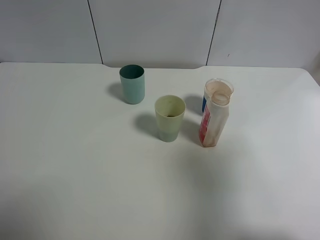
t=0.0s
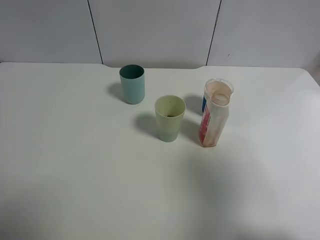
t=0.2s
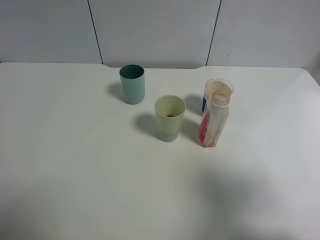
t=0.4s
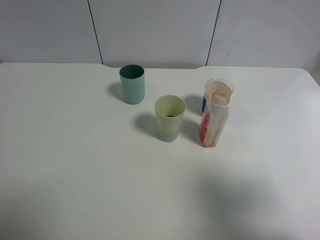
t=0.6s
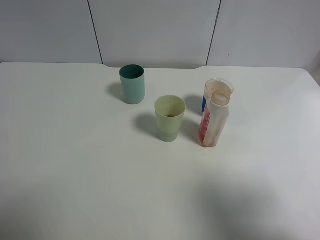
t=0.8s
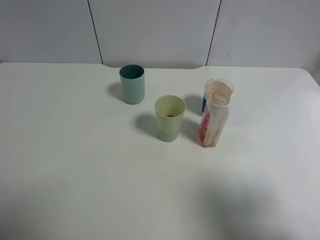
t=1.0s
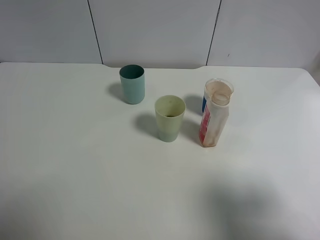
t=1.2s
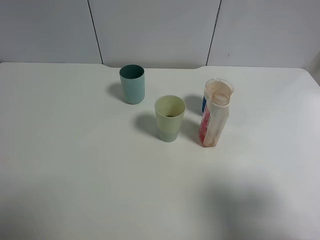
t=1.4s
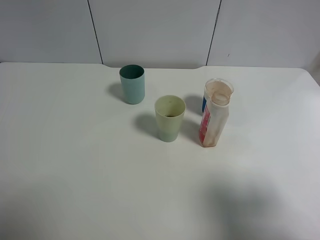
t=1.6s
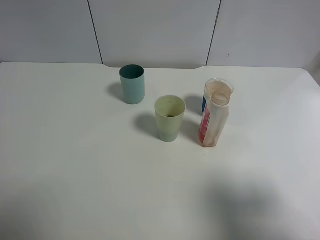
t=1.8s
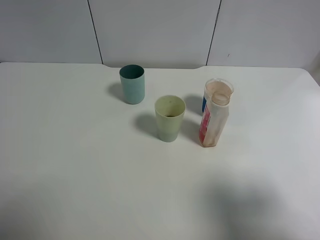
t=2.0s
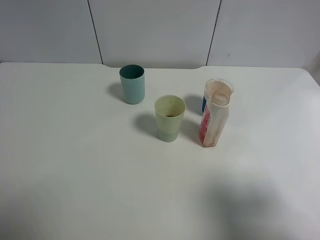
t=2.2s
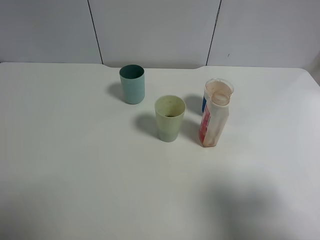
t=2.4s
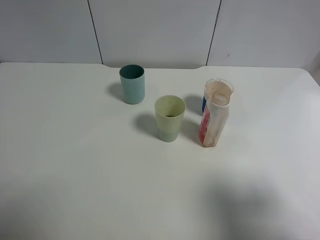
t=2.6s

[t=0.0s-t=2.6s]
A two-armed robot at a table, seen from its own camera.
Task of the whole recording: use a gripper to hold the bottle of the drink and pour it into a random cup.
t=0.0s to t=1.2s: The right gripper is displaced downward by some 10 cm.
t=1.2s to t=2.6s: Both grippers stay about where they are.

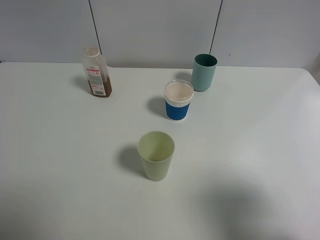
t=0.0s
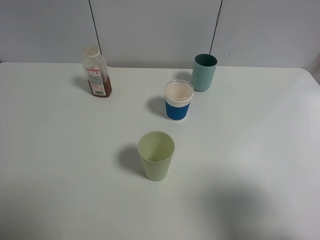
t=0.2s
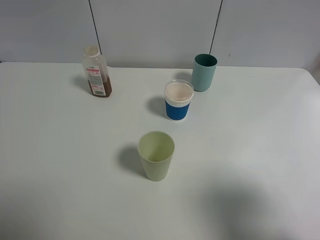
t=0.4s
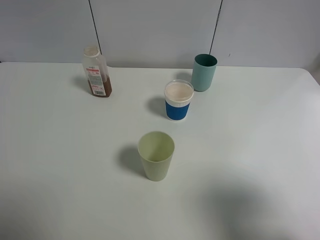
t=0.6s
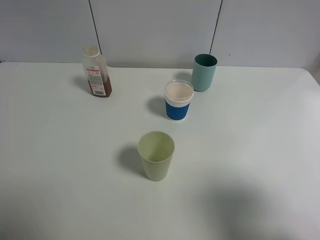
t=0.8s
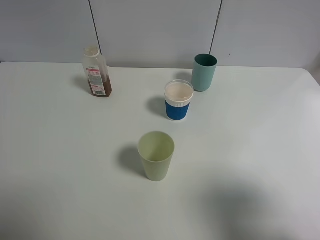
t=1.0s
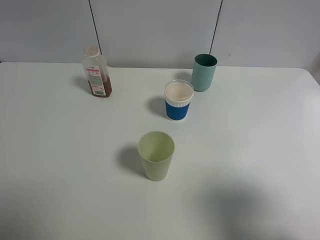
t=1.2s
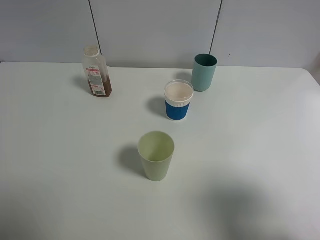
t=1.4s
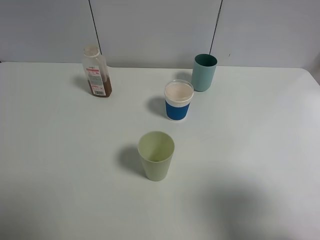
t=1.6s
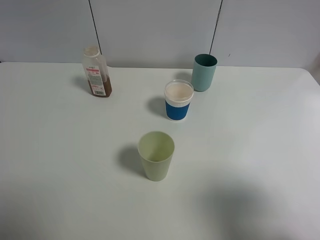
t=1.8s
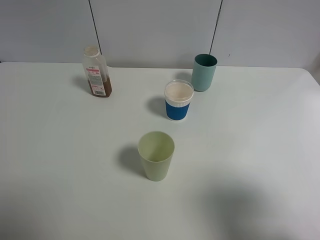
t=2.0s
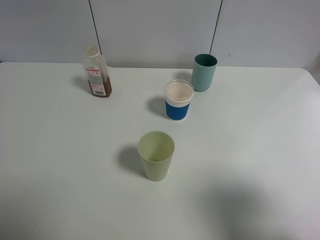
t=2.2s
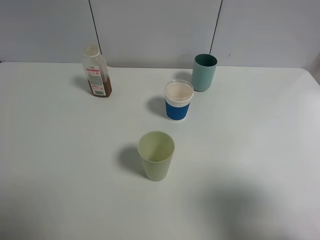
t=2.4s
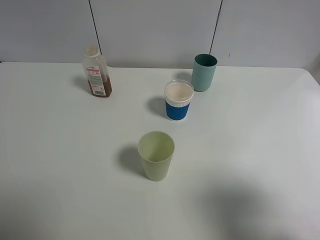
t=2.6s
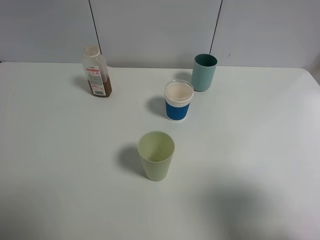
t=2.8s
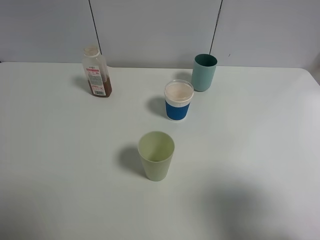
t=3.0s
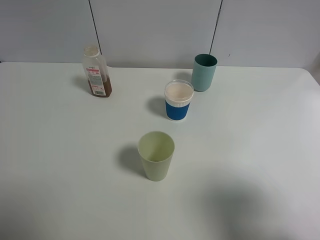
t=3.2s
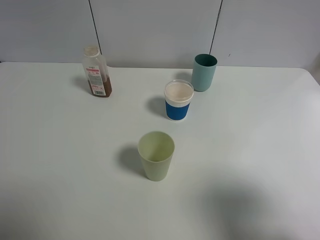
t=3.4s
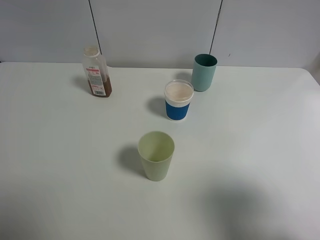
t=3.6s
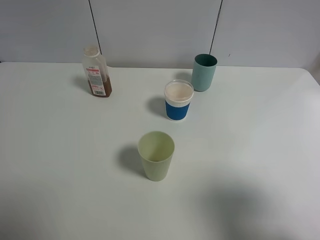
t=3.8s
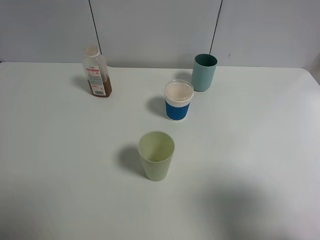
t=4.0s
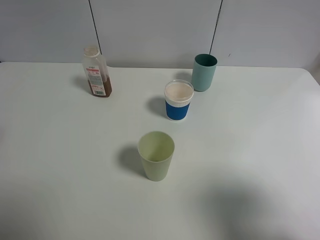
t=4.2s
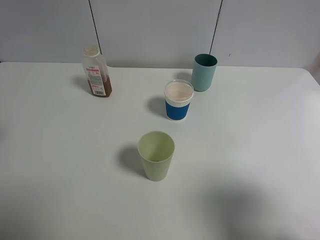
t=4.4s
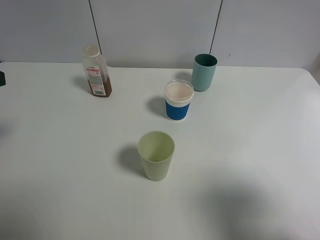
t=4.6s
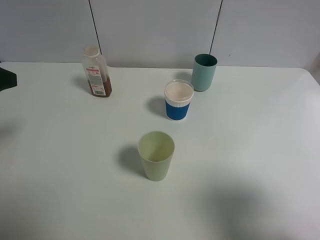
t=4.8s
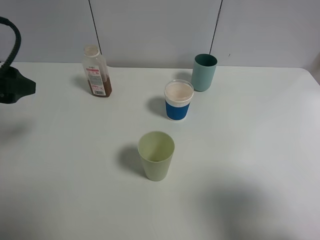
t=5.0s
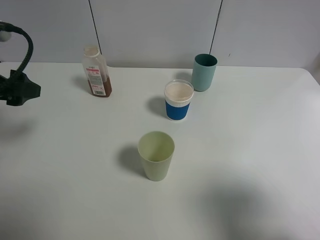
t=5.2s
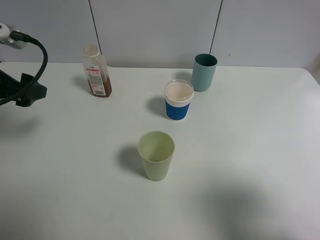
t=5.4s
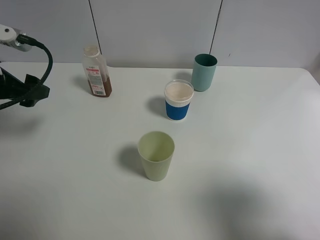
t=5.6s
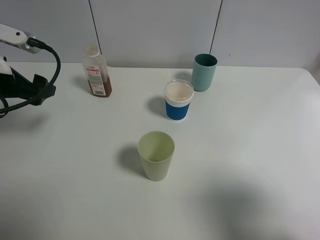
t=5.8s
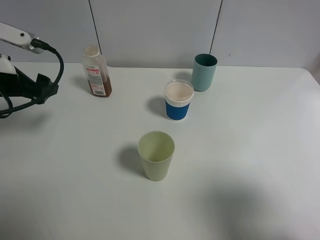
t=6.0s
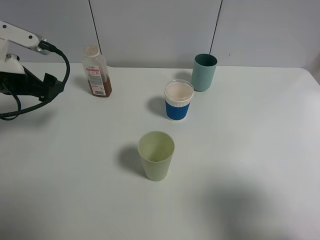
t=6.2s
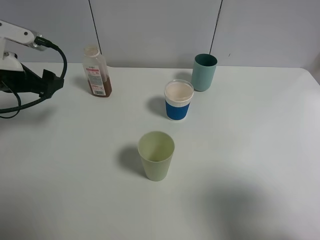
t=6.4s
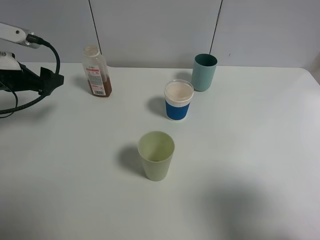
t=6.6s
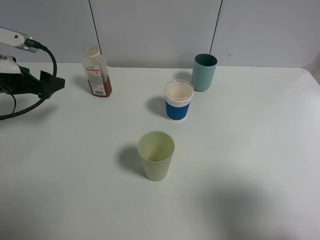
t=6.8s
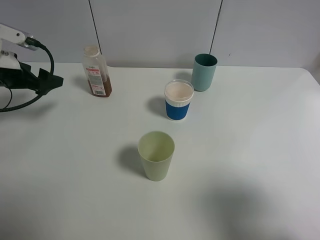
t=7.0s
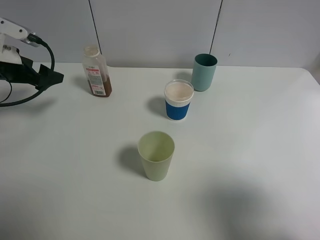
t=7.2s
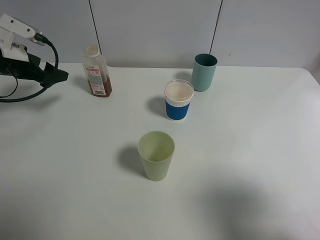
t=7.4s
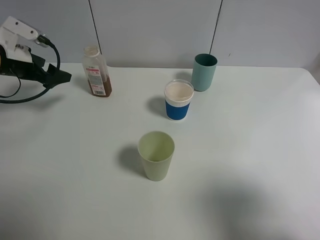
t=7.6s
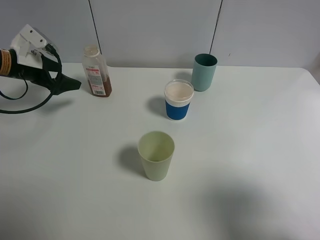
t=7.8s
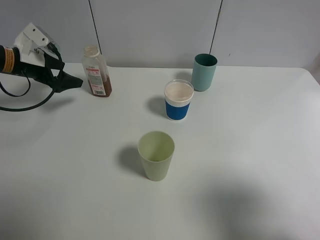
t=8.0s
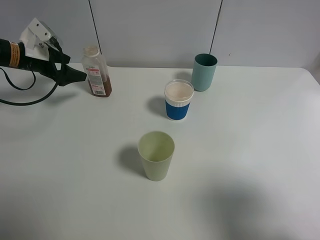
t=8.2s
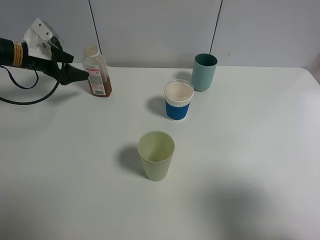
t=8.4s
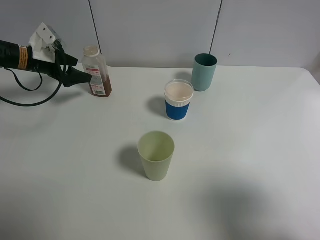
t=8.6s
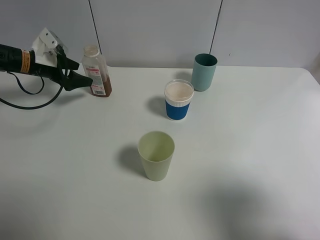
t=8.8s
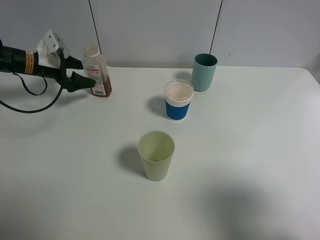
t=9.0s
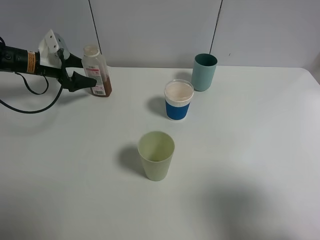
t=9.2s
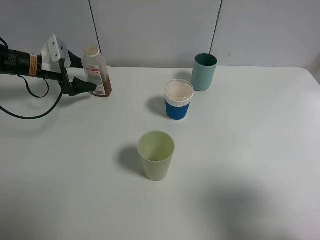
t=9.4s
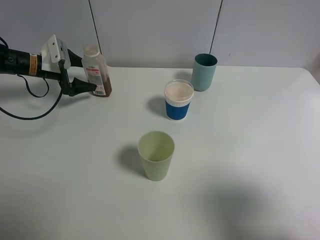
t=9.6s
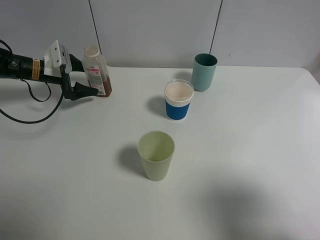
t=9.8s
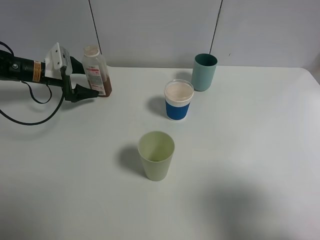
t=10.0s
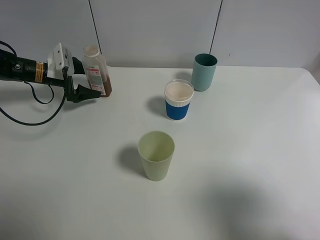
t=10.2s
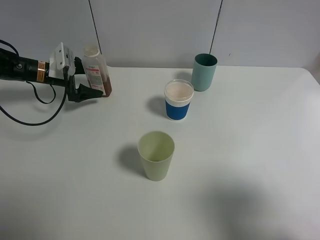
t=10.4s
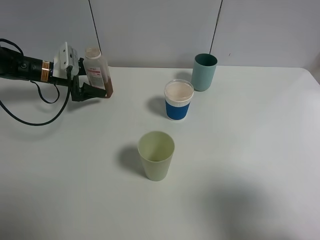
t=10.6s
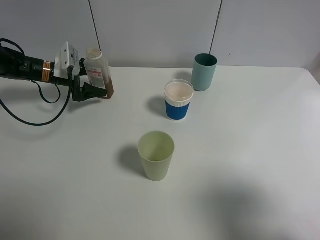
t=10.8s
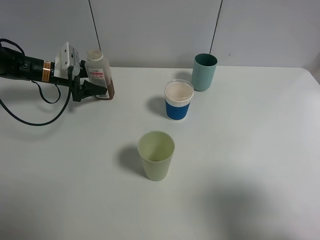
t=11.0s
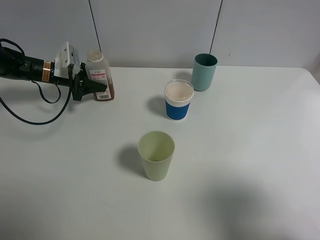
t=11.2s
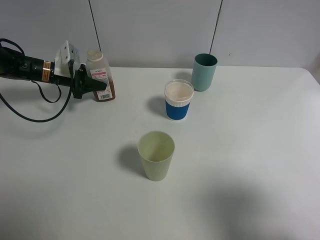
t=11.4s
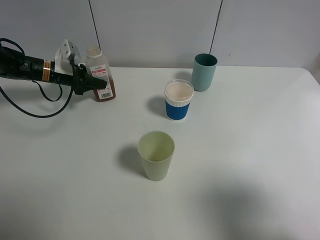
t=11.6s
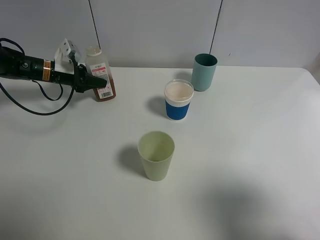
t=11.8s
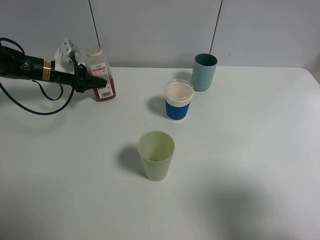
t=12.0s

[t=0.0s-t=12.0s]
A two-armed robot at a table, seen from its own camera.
Task of the whole recording: use a gripper to hold the bottle of the drink and pour it into a random cup.
Step, t=0.0s to t=11.2s: Grasp the cranberry juice bottle with the left gripper.
t=0.0s to t=3.0s: Neither gripper changes place.
t=4.4s to t=6.0s: The left gripper is displaced forward and downward by roughly 15 cm.
t=6.0s to t=7.6s: The left gripper shifts some 10 cm forward.
t=7.6s to t=9.0s: The left gripper travels forward and downward by approximately 10 cm.
t=9.0s to t=10.4s: There are only small adjustments of the grippers.
t=10.4s to t=12.0s: The left gripper closes up.

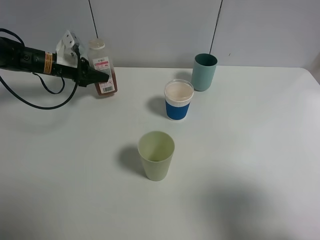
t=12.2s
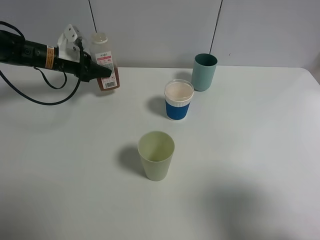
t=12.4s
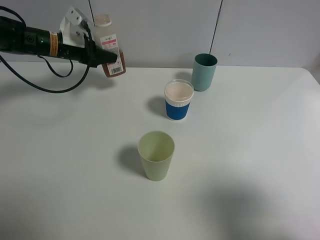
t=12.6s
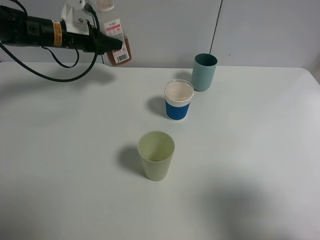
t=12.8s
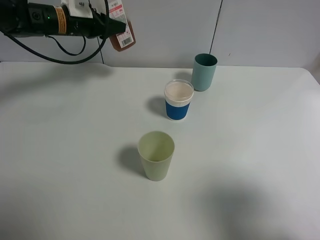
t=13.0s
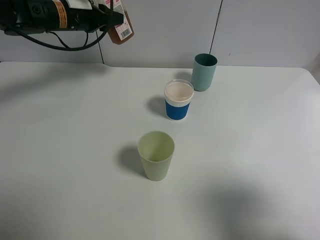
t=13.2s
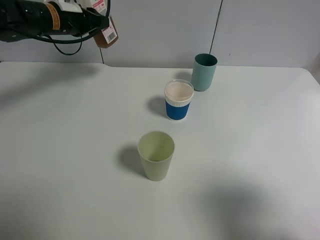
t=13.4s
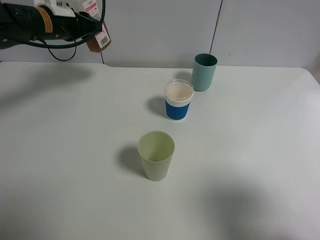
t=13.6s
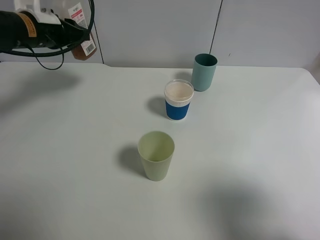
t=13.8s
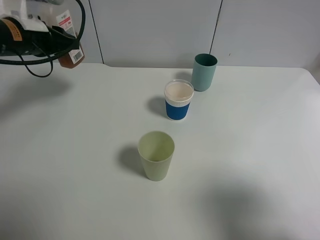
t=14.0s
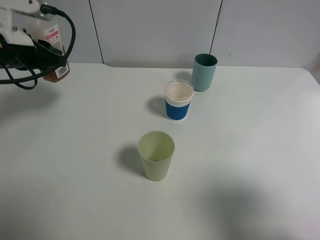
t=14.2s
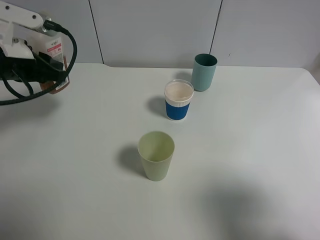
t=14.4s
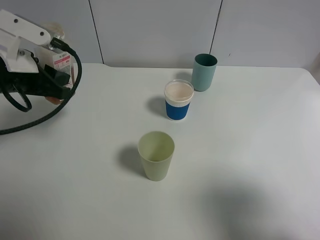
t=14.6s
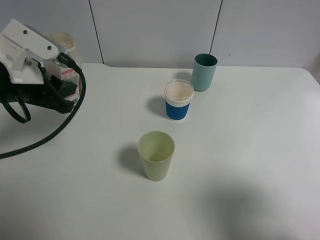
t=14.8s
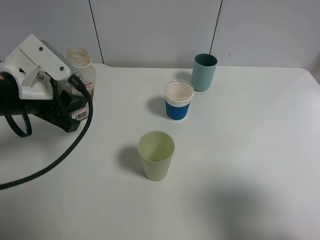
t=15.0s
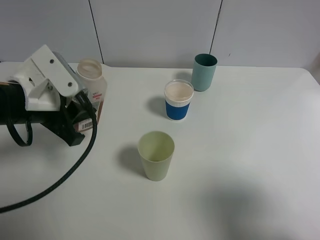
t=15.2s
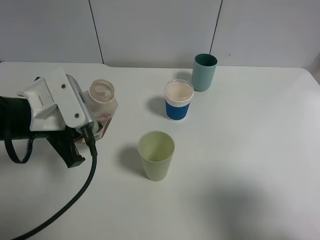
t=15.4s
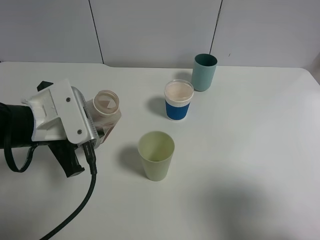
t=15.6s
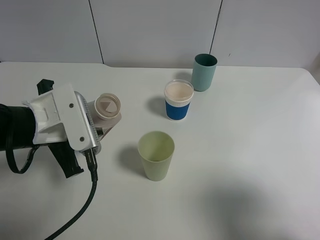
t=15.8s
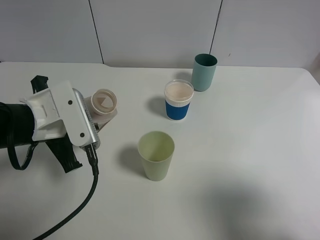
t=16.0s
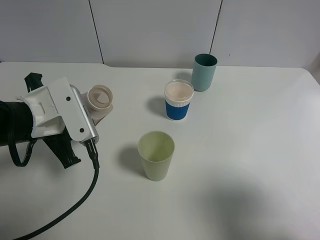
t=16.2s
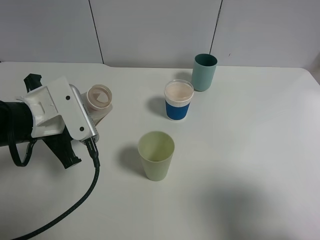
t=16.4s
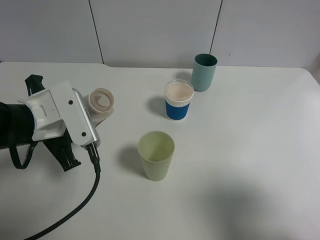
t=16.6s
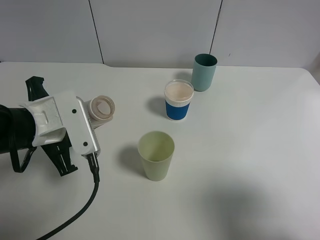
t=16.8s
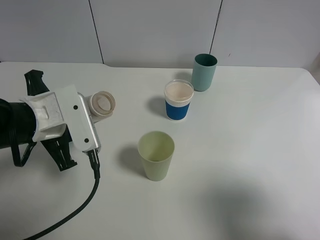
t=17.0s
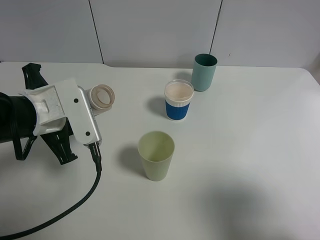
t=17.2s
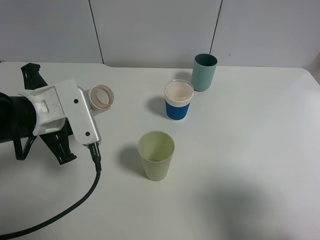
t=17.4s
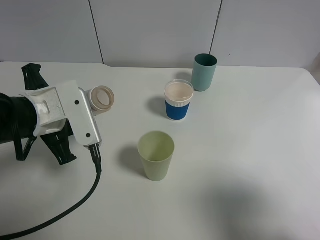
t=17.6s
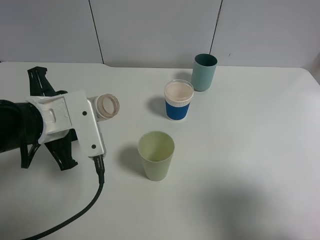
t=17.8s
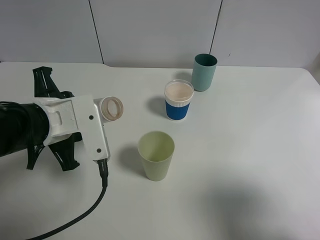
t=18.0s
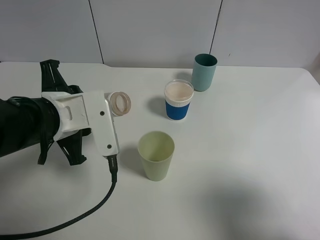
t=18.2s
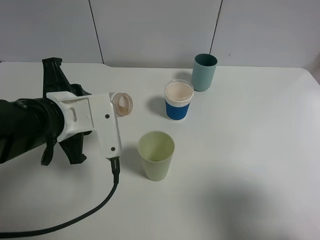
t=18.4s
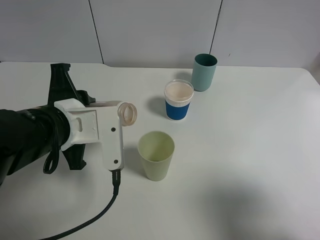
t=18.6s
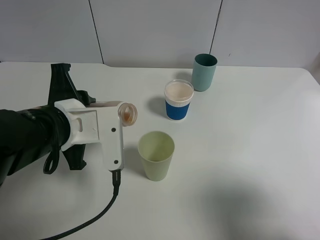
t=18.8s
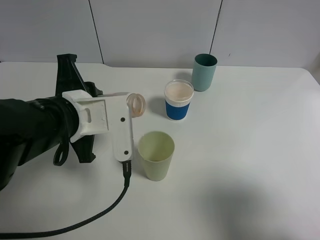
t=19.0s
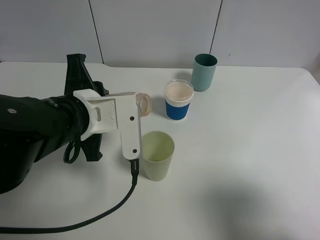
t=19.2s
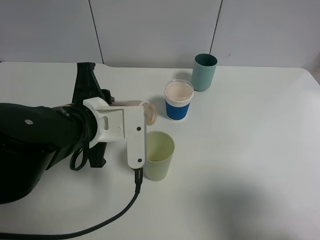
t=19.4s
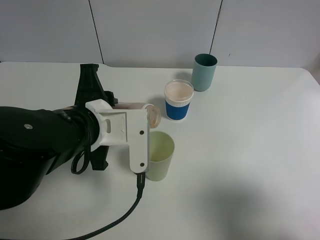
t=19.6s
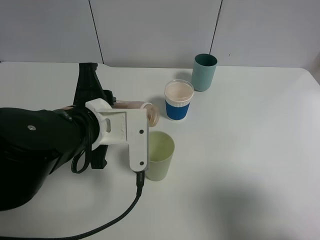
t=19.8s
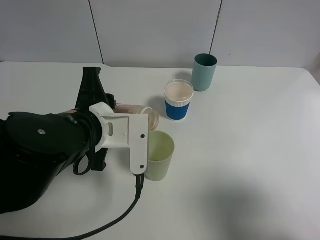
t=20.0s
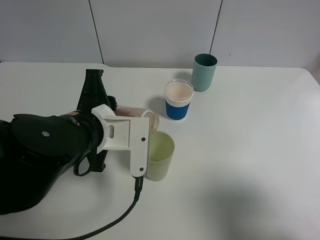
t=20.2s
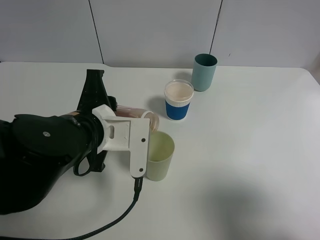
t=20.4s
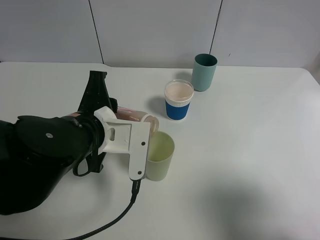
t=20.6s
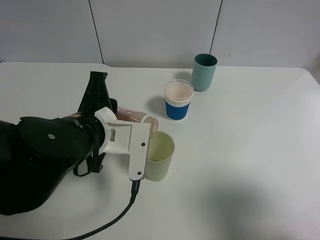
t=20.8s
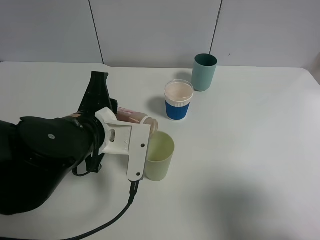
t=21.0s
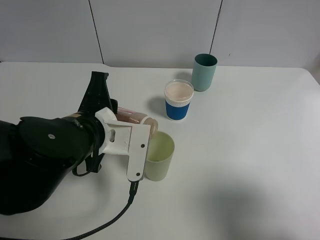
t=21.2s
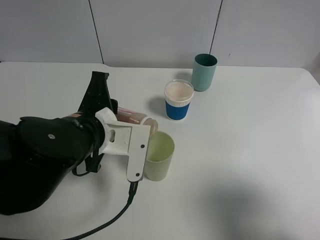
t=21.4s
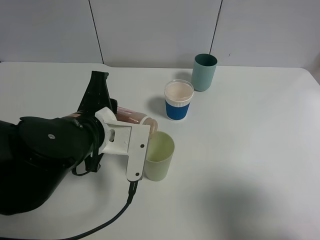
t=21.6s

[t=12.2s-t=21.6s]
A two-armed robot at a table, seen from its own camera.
Task of the whole recording: use a gripper to hold the bottle of the drink and pour it into a random cup.
t=12.2s to t=13.8s: The left gripper goes approximately 15 cm upward and backward.
t=13.8s to t=15.4s: The left gripper shifts some 15 cm backward.
t=17.0s to t=18.4s: There are only small adjustments of the grippers.
t=18.4s to t=21.6s: The grippers make only small movements.
